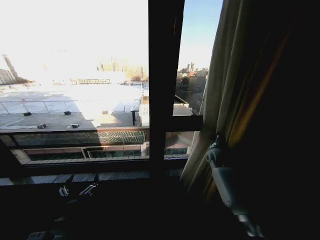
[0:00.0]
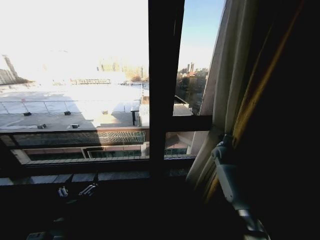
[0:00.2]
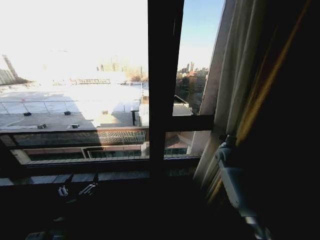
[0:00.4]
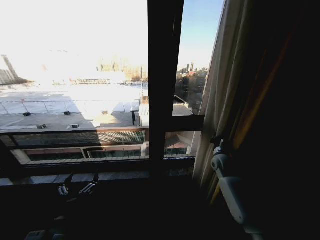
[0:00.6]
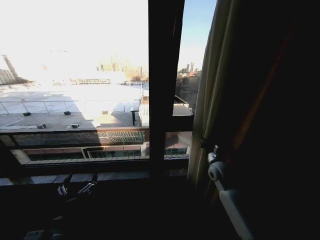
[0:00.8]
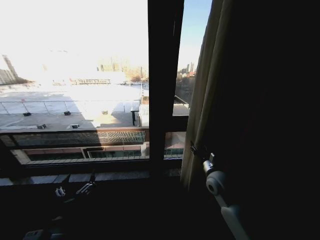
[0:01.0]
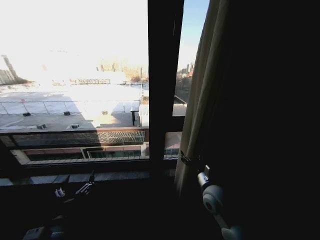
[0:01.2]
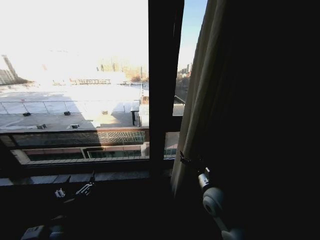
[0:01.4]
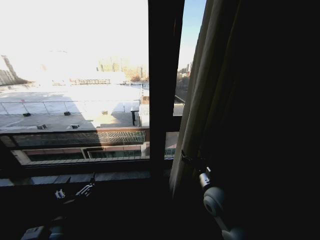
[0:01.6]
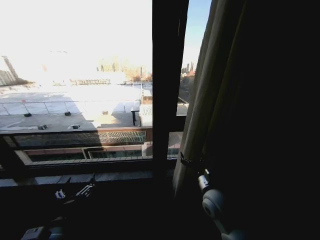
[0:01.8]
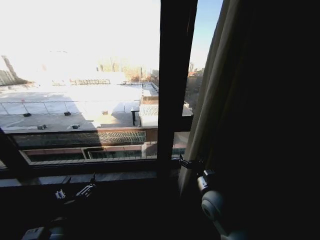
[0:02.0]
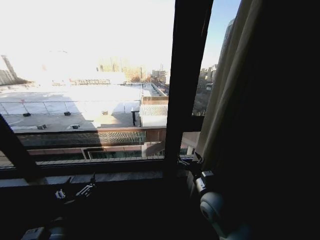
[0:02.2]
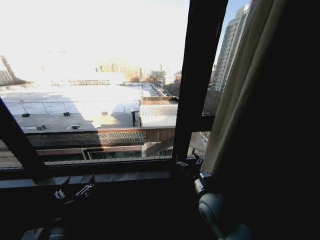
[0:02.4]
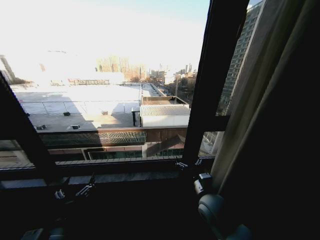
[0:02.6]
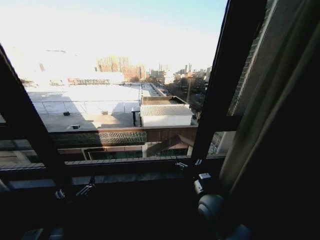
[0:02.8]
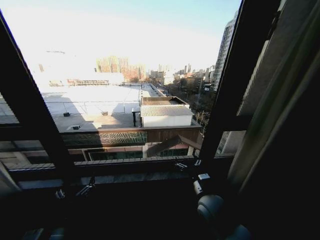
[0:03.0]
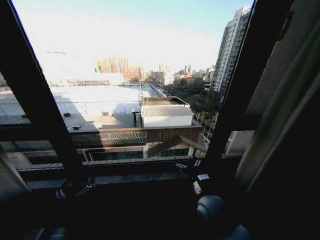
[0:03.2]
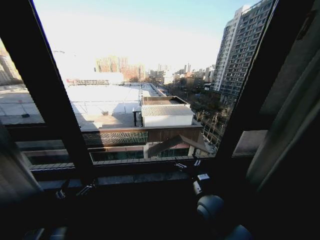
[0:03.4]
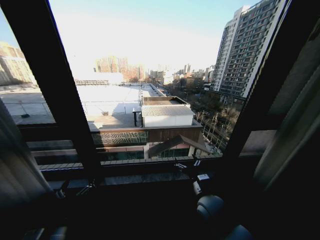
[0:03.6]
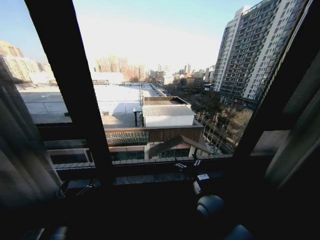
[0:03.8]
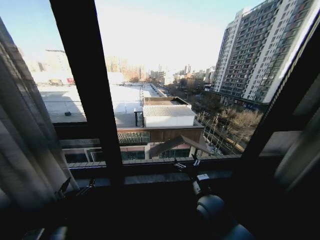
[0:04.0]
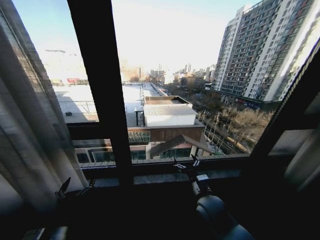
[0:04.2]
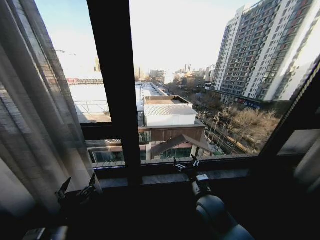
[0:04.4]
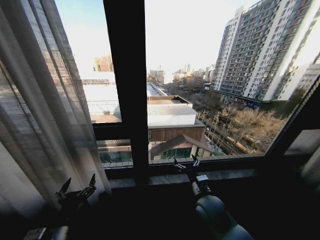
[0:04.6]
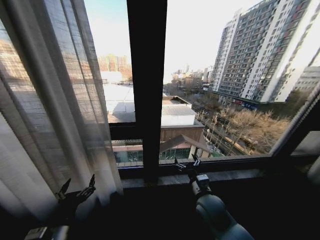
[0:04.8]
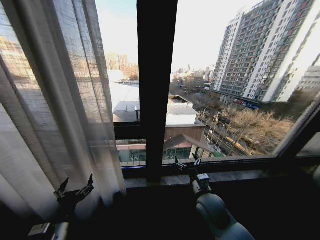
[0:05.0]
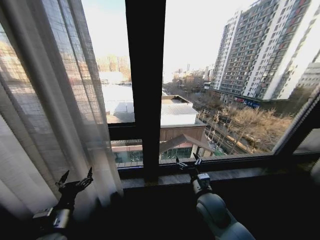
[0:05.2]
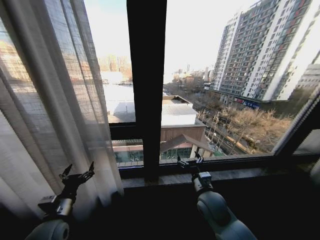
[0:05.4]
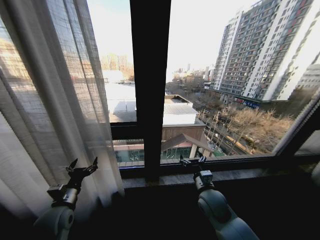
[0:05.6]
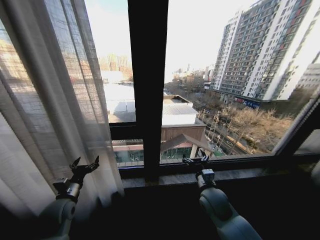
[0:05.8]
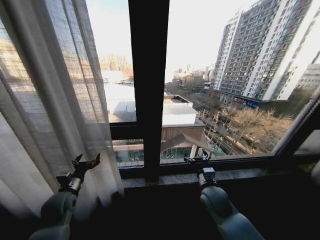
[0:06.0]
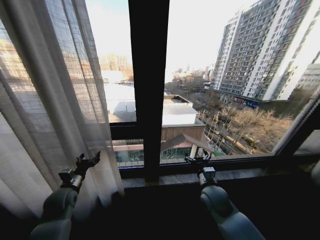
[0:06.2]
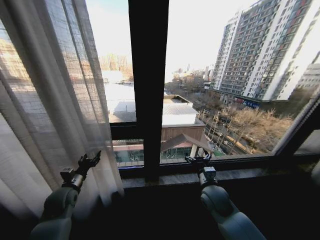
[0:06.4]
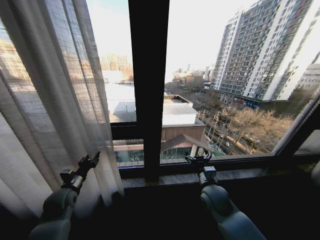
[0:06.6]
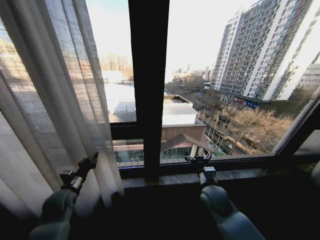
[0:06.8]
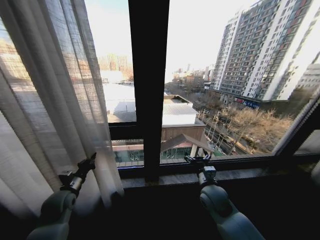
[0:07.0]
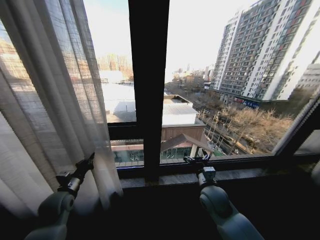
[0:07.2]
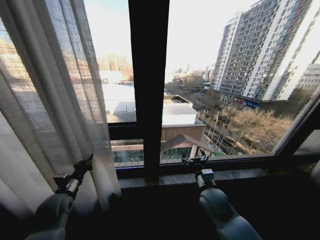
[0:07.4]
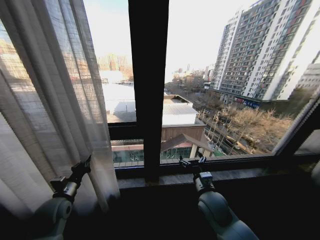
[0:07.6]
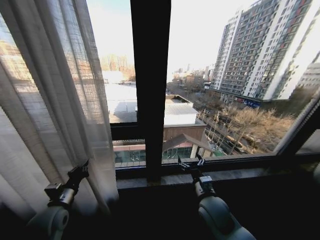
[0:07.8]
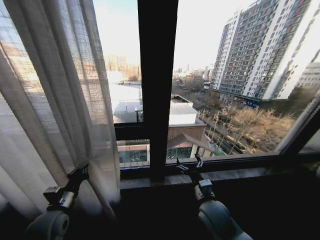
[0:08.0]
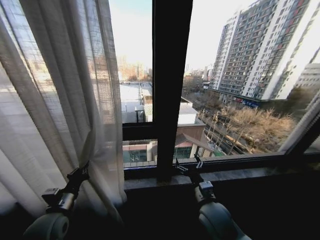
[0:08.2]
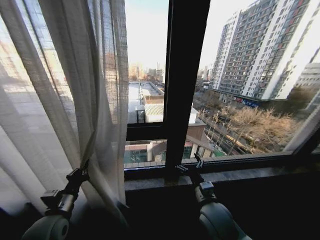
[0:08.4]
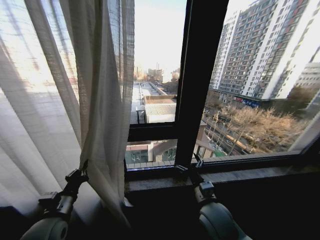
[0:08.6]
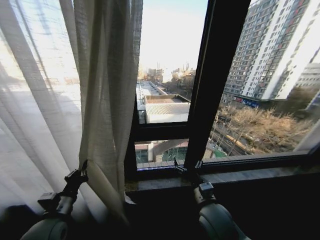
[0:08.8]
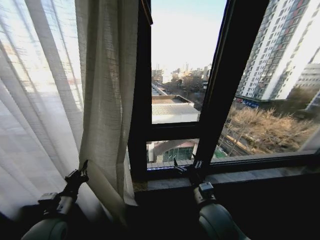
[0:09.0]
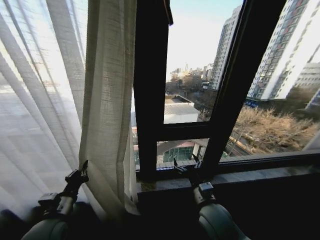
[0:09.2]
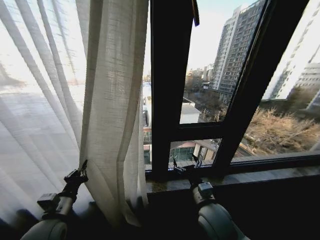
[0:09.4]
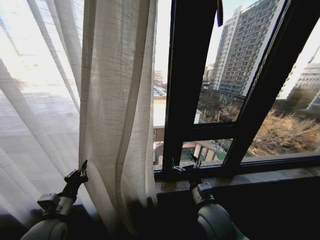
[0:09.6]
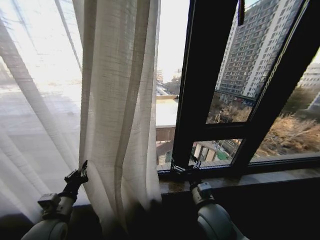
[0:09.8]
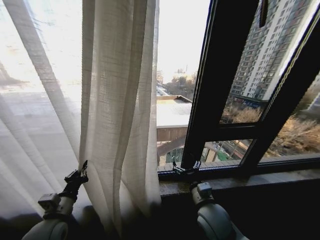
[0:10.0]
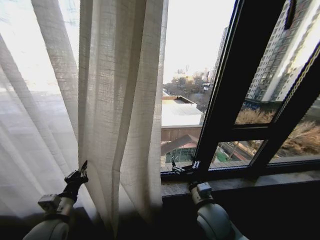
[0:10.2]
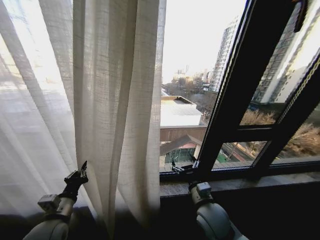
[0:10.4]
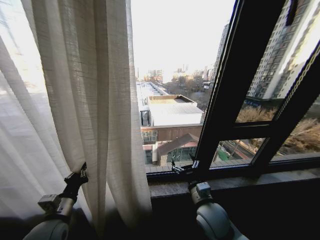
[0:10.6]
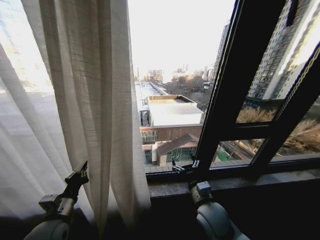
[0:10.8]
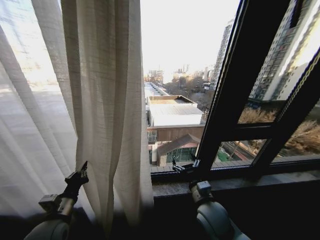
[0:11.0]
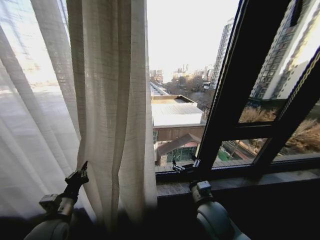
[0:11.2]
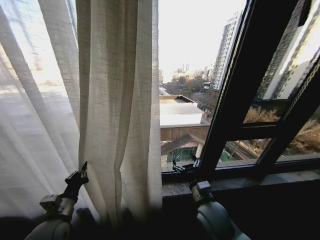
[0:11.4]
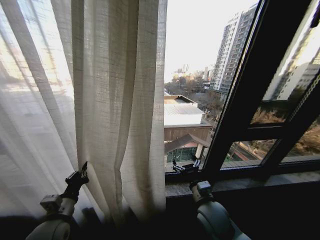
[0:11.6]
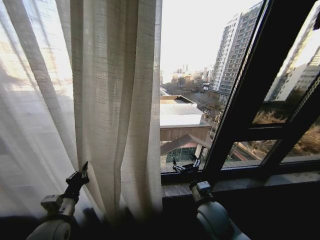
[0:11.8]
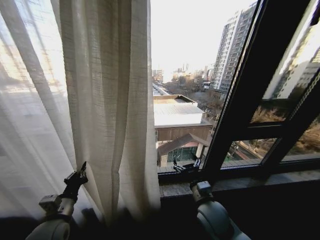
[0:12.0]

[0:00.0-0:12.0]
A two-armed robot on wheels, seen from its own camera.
Task of the whole recording: Open the curtains by pulling them apart, changing their state from closed to fully open.
0.0 to 1.6 s: The right gripper heads backward and to the left, covering approximately 25 cm, and opens up.
4.4 to 6.0 s: The left gripper travels forward and to the left by roughly 20 cm. Meanwhile the right gripper ends up some 5 cm from where it was.
6.0 to 7.6 s: The left gripper closes up.
7.6 to 9.0 s: The left gripper heads backward, covering about 5 cm. The right gripper shifts by about 5 cm.

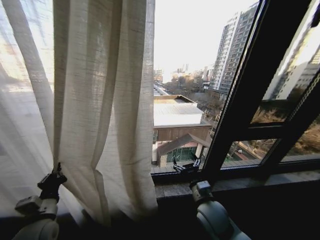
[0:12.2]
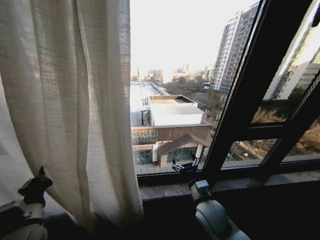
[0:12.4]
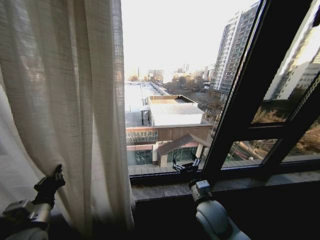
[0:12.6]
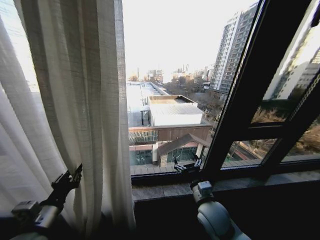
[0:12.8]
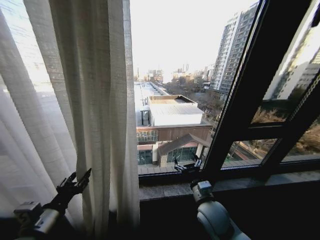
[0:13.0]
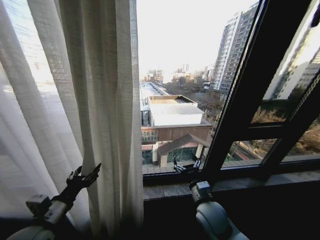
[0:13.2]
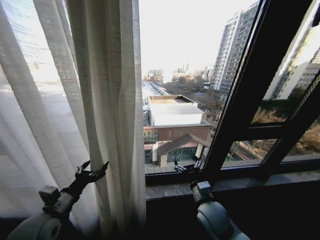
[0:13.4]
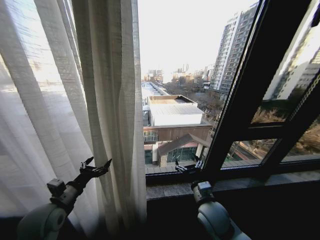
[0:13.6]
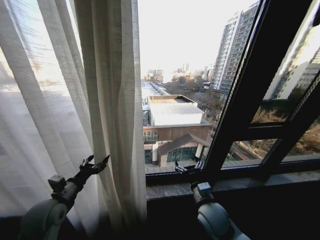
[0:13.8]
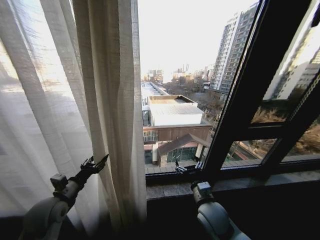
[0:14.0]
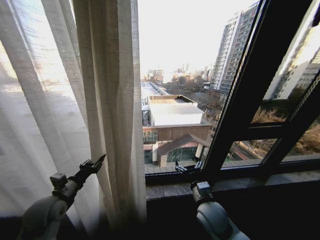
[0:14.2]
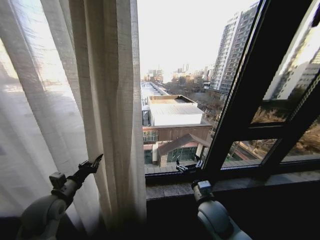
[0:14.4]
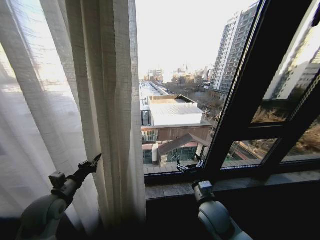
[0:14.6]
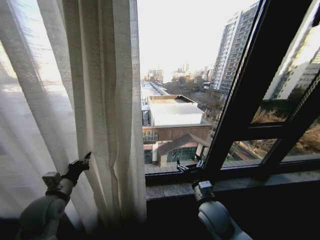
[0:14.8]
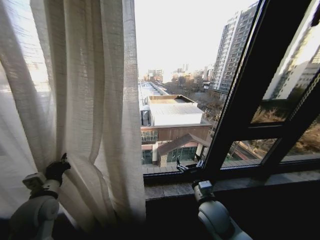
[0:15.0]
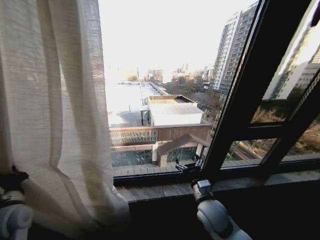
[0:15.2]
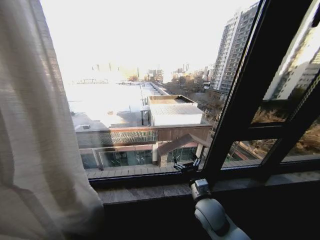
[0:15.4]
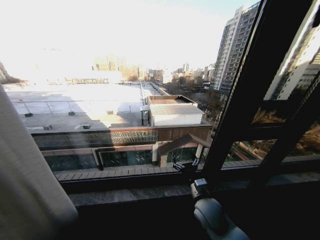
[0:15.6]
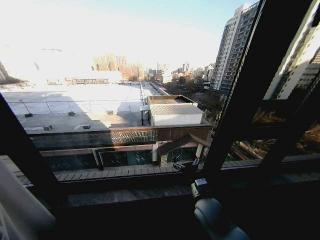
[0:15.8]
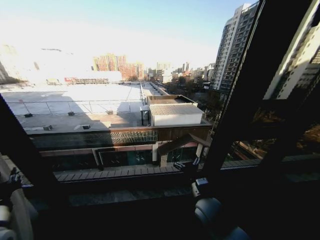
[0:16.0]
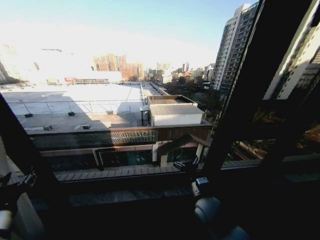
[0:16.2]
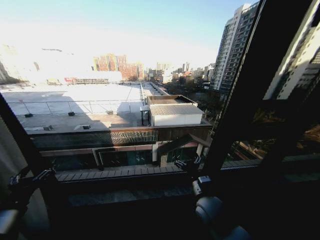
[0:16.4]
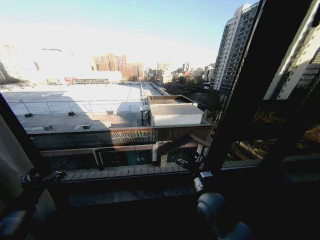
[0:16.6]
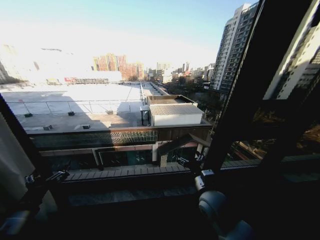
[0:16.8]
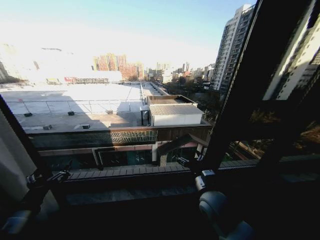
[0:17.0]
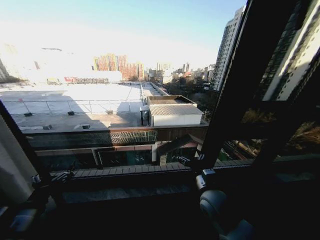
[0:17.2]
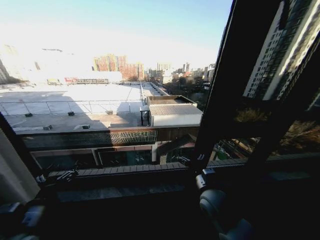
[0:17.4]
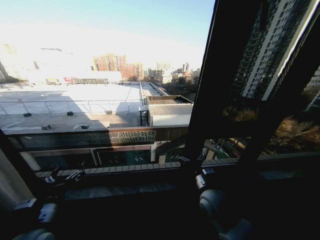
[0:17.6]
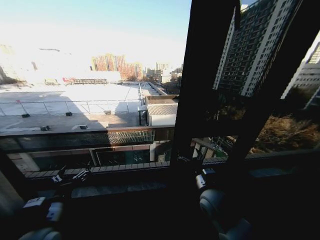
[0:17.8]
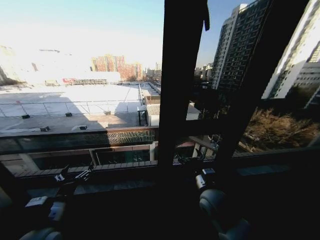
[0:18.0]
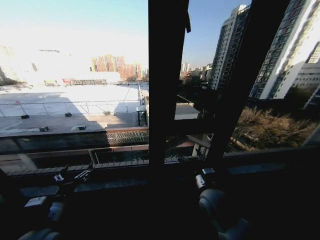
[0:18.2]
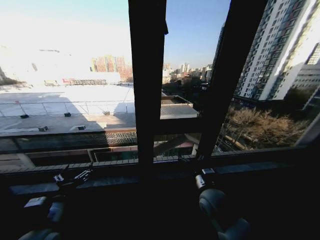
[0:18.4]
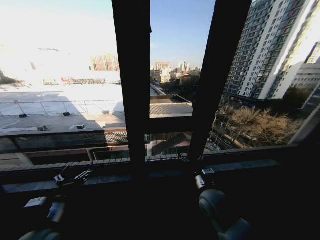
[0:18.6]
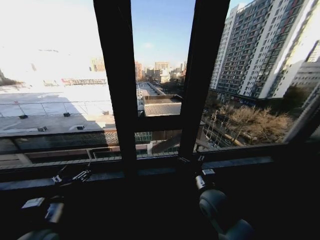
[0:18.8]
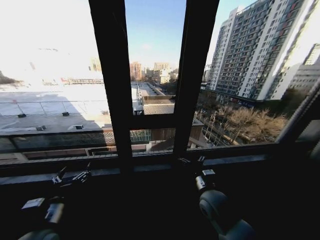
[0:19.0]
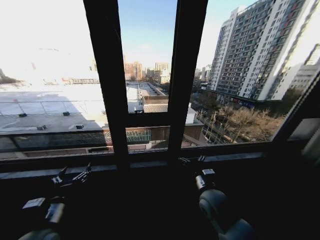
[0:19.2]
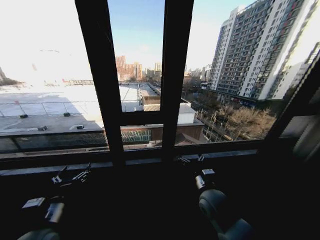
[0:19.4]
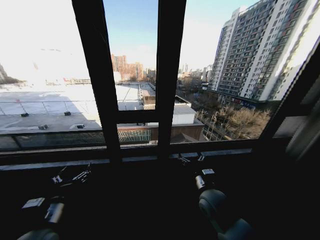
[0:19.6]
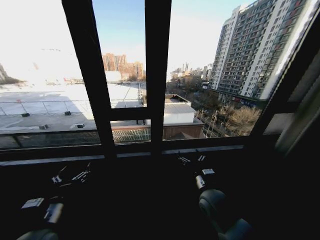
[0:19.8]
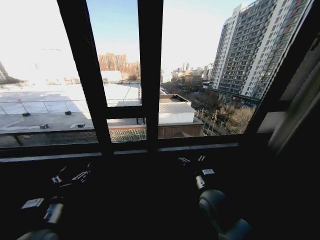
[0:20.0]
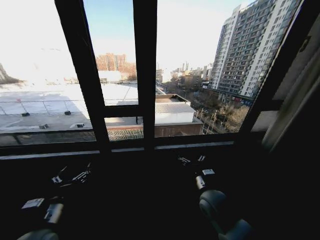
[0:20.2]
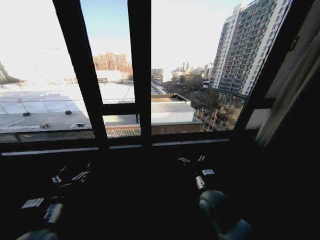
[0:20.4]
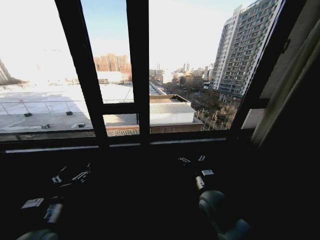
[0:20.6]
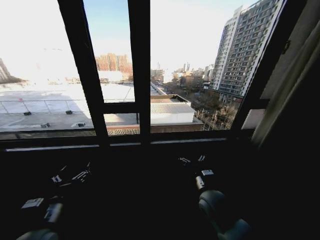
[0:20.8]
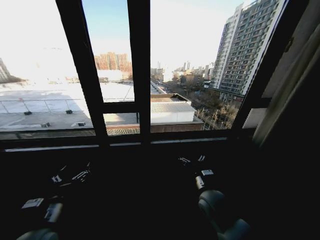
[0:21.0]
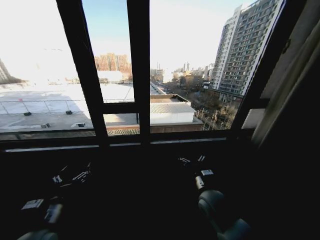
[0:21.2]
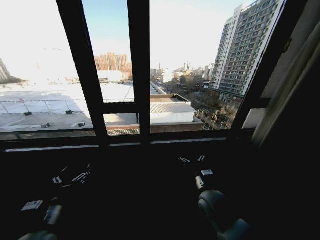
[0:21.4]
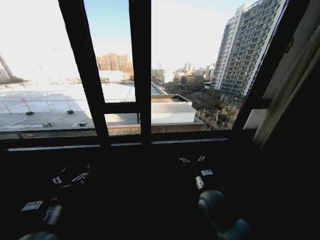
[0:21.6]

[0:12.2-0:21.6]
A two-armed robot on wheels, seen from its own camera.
Task of the whole recording: Open the curtains by pulling them apart, changing their state from closed to fully open.
12.2 to 13.8 s: The left gripper opens.
13.8 to 15.4 s: The left gripper moves to the left and backward, approximately 15 cm, and closes.
15.4 to 17.0 s: The left gripper shifts roughly 10 cm to the right, and opens its fingers.
17.0 to 18.4 s: The left gripper shifts about 10 cm to the right.

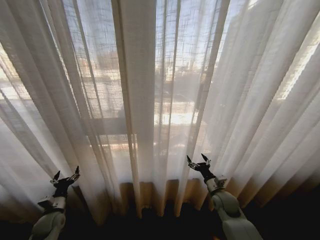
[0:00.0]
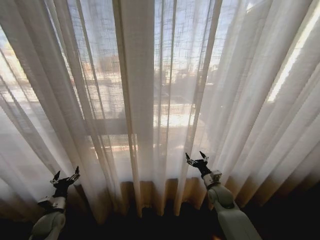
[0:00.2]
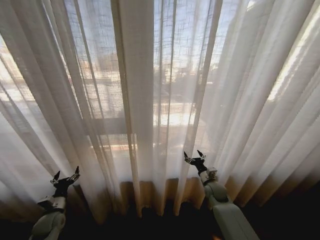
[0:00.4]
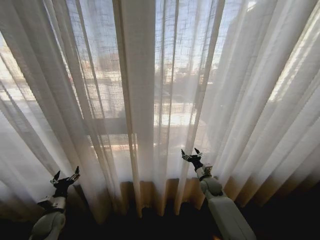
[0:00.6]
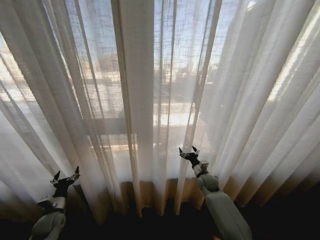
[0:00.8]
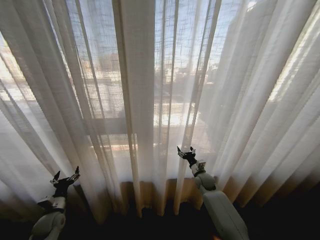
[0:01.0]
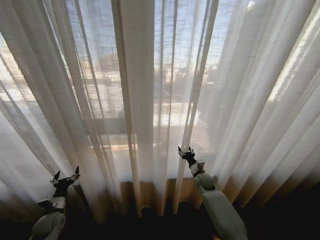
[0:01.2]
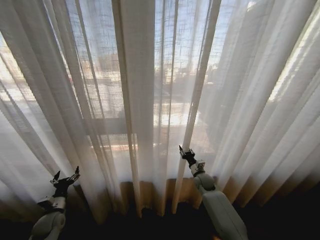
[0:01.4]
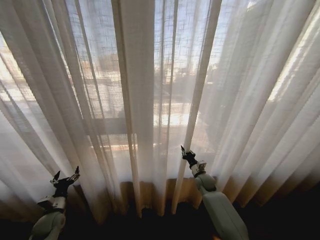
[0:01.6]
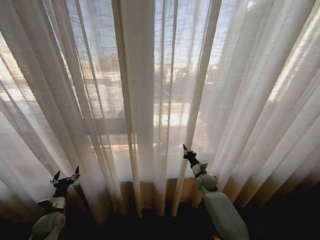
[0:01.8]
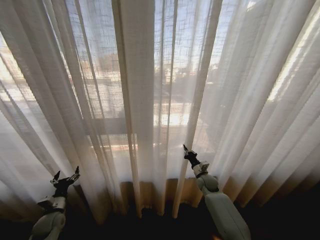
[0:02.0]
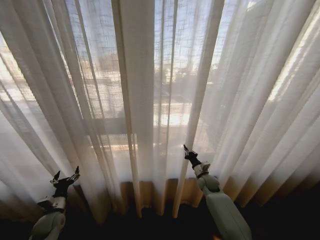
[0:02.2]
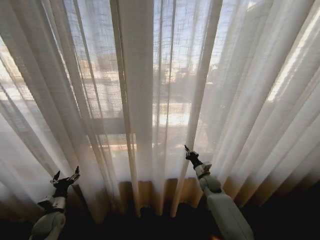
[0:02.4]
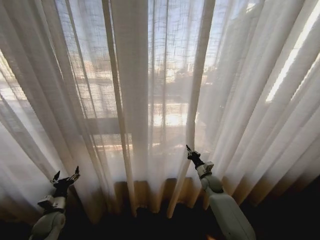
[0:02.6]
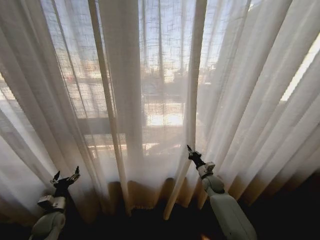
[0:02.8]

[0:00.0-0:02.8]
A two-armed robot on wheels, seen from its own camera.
Task of the whole recording: Open the curtains by pulling them apart, changing their state from closed to fully open.
0.0 to 1.4 s: The right gripper heads forward, covering roughly 10 cm, and closes its fingers.
1.4 to 2.8 s: The right gripper closes up.
